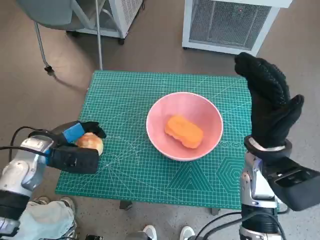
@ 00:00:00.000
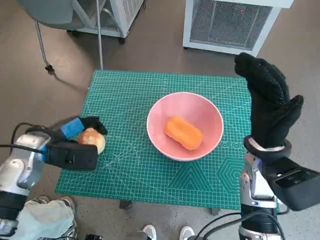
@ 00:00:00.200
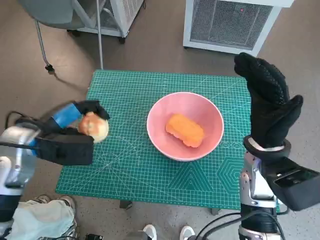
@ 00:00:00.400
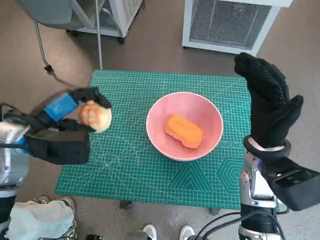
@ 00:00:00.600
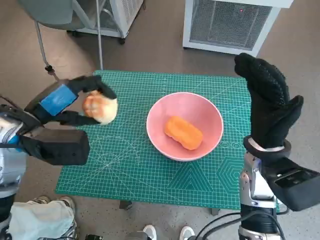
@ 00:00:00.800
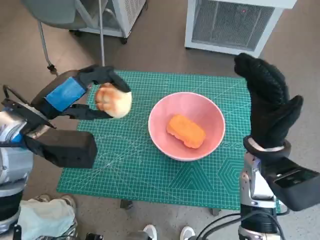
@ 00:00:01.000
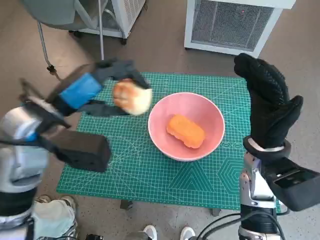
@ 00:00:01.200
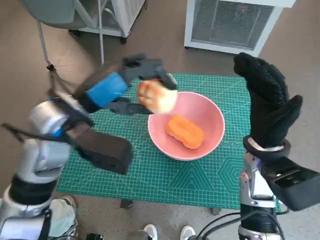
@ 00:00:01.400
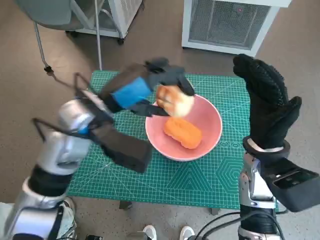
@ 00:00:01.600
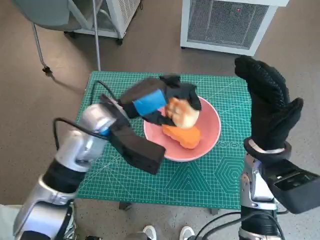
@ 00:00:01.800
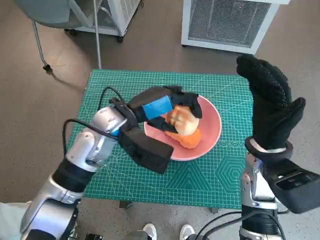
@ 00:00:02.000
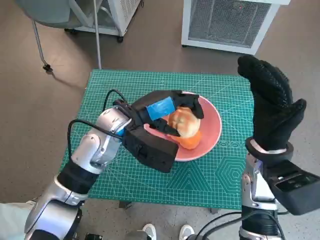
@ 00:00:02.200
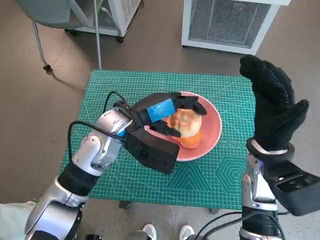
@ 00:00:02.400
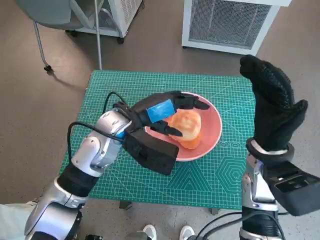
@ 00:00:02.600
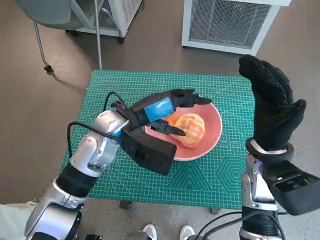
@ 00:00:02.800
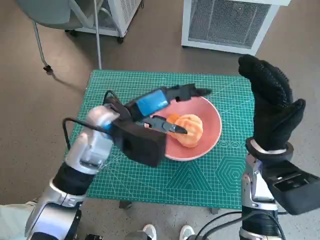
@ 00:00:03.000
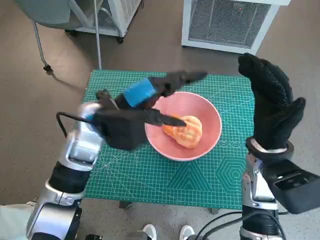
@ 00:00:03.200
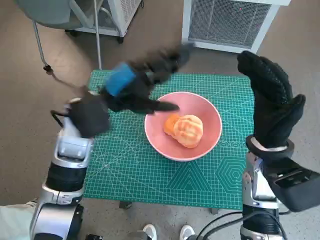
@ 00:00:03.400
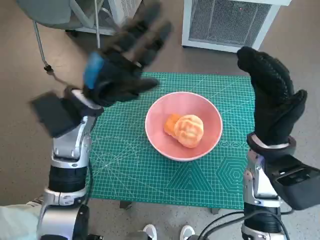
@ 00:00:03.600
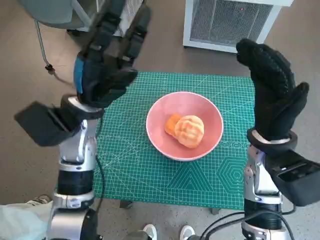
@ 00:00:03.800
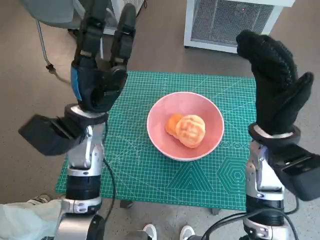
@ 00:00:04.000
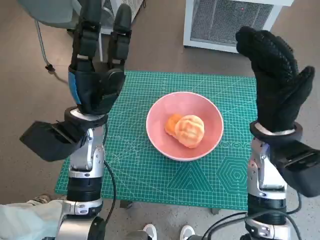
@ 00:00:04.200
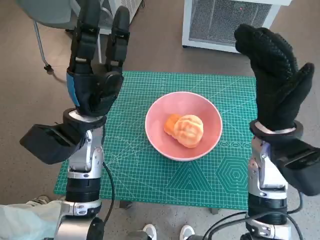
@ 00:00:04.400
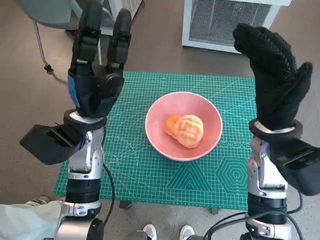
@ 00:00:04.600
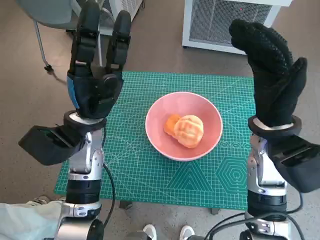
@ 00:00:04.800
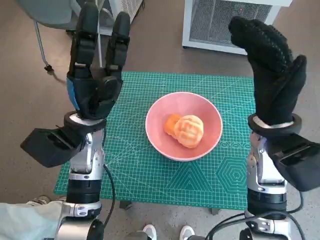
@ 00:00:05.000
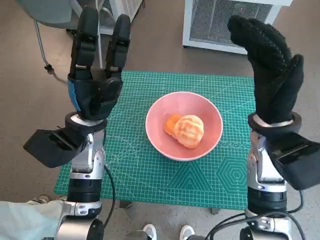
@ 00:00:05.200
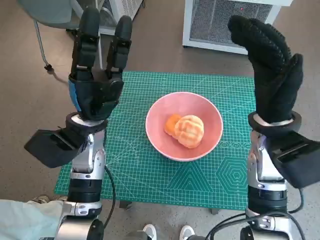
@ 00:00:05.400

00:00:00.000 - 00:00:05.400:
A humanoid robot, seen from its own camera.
Task of the whole recording: Push the bowl to the center of the table and put the bread into the bowl.
Step, 00:00:00.000 - 00:00:03.000: Place the round bread in pink bowl with left hand.
00:00:00.000 - 00:00:01.400: The left hand shifts about 15 cm upward and to the right.
00:00:01.400 - 00:00:02.800: The left hand is displaced to the right and downward by roughly 10 cm.
00:00:02.800 - 00:00:04.000: The left hand is displaced to the left by some 5 cm.
